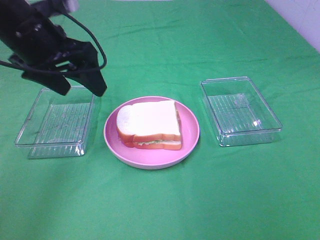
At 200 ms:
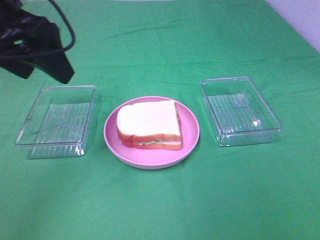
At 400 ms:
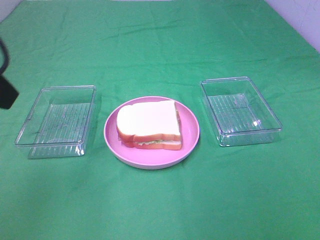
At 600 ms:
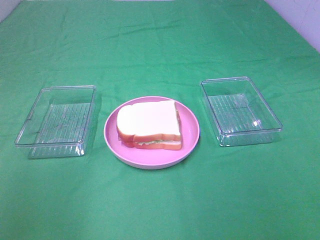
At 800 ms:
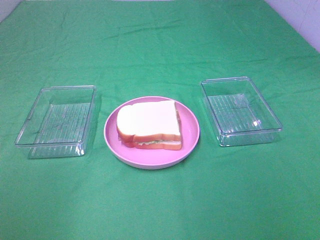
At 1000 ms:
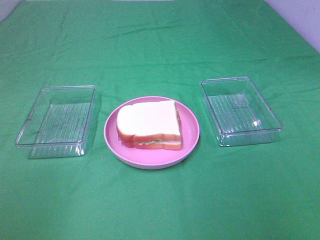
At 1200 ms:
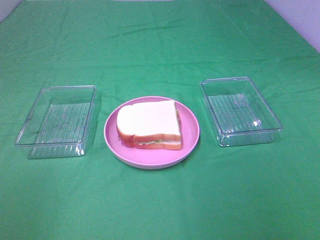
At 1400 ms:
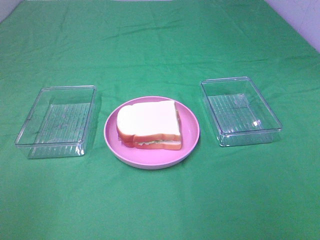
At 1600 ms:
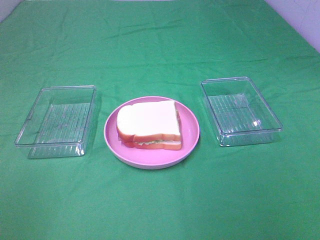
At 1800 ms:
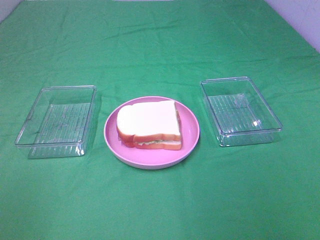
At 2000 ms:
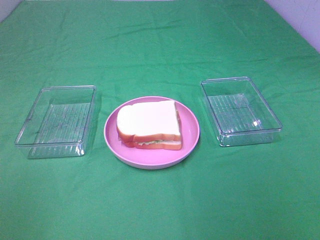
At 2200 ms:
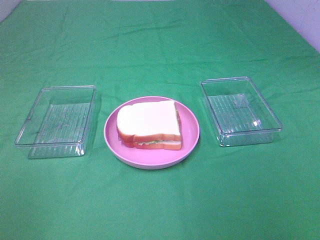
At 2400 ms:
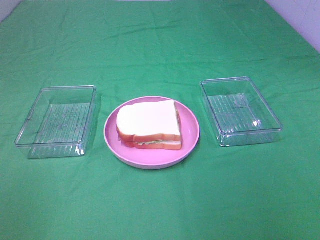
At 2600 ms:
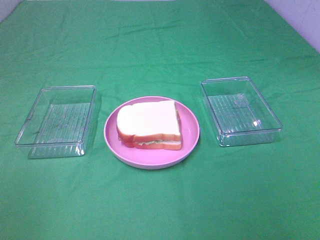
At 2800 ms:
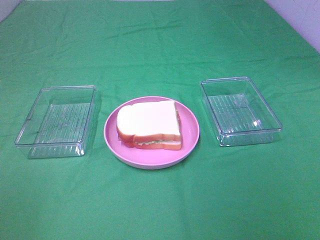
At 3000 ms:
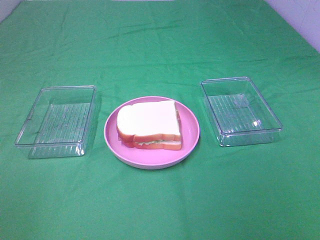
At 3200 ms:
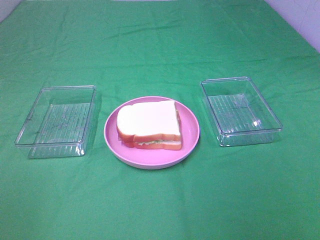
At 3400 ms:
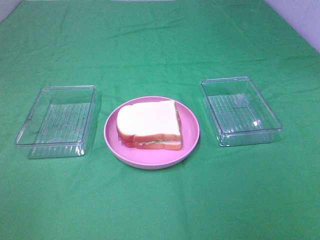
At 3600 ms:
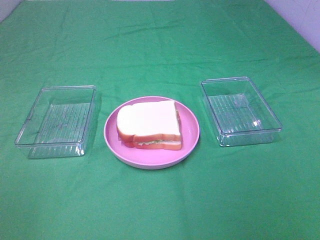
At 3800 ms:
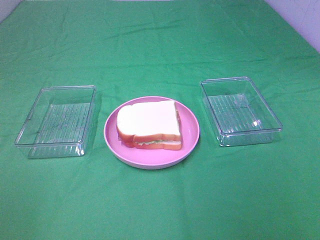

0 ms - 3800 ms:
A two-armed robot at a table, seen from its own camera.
Task of the whole recording: Make sandwiches.
0 ms - 1200 ms: The left gripper goes approximately 30 cm backward and to the left.

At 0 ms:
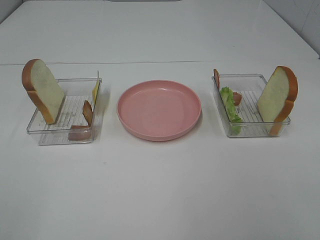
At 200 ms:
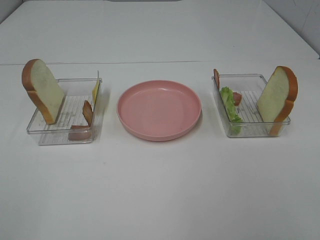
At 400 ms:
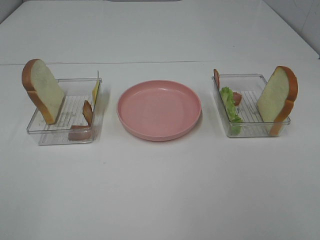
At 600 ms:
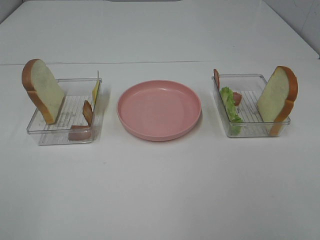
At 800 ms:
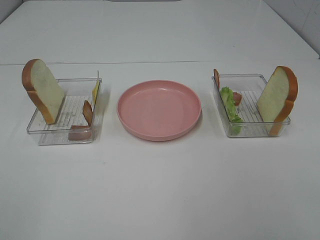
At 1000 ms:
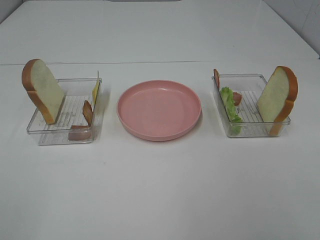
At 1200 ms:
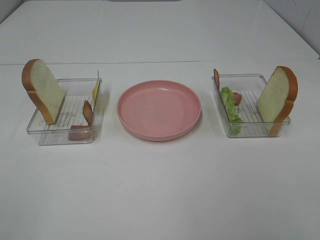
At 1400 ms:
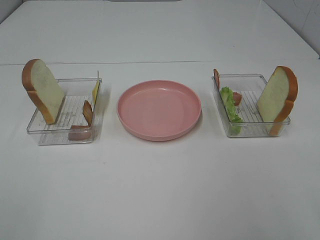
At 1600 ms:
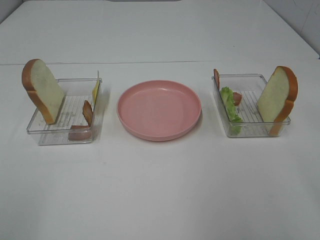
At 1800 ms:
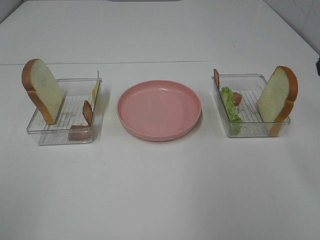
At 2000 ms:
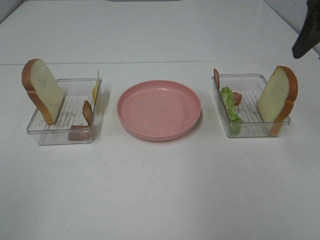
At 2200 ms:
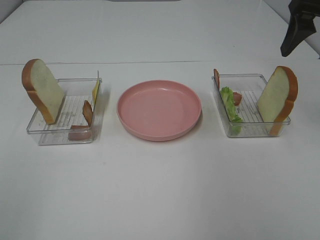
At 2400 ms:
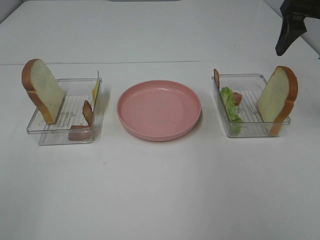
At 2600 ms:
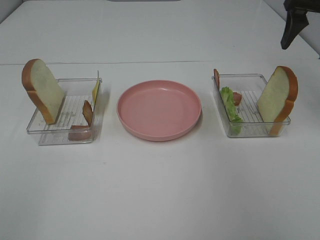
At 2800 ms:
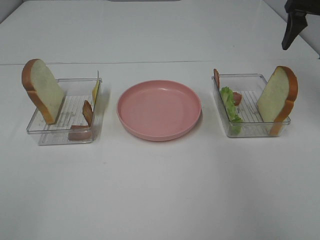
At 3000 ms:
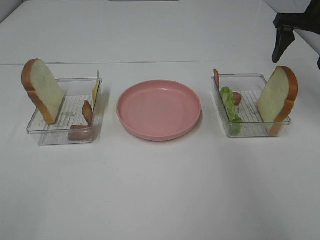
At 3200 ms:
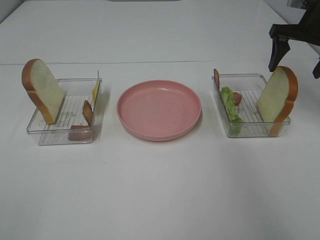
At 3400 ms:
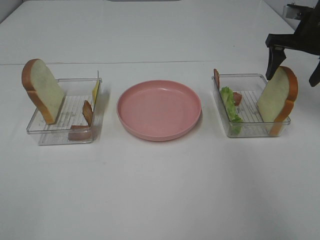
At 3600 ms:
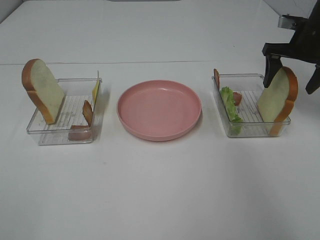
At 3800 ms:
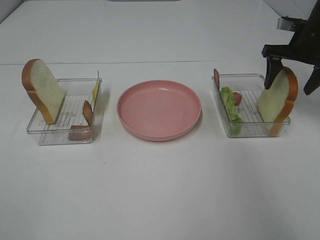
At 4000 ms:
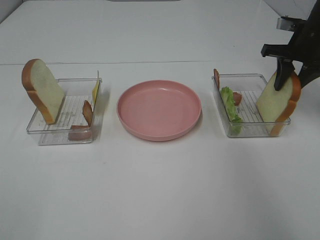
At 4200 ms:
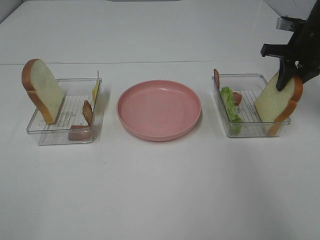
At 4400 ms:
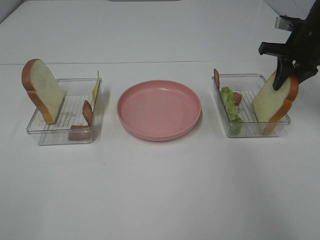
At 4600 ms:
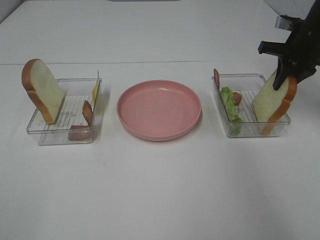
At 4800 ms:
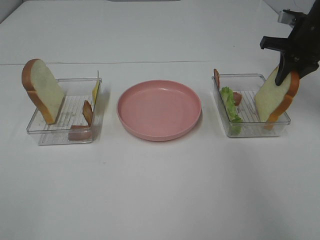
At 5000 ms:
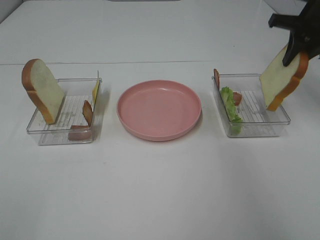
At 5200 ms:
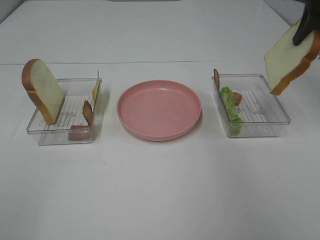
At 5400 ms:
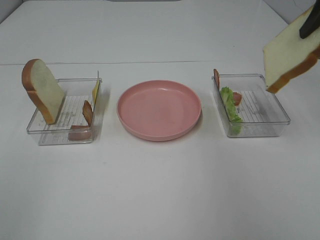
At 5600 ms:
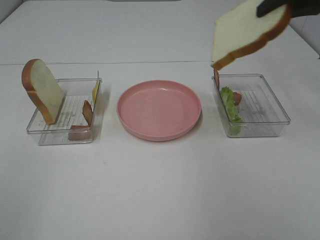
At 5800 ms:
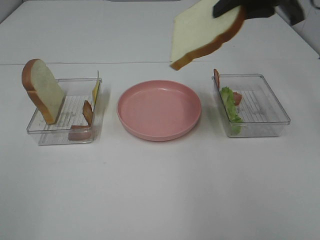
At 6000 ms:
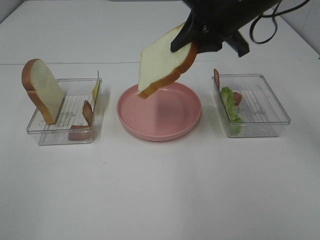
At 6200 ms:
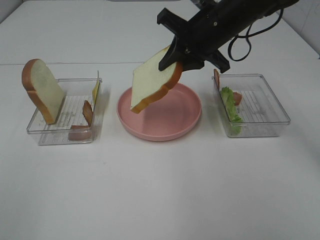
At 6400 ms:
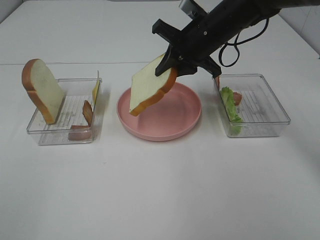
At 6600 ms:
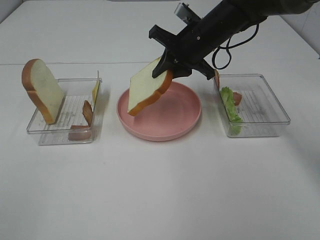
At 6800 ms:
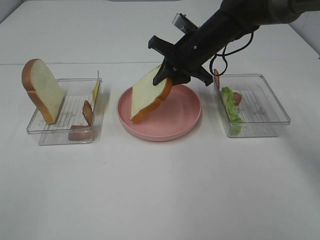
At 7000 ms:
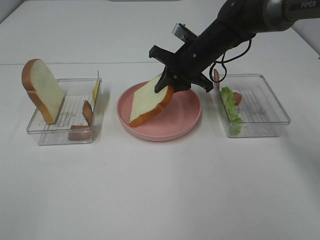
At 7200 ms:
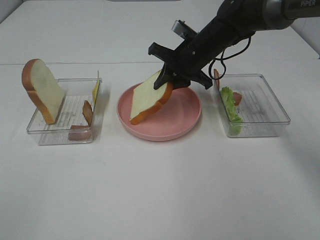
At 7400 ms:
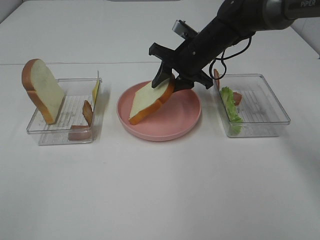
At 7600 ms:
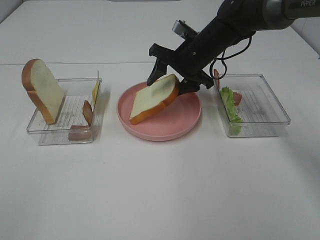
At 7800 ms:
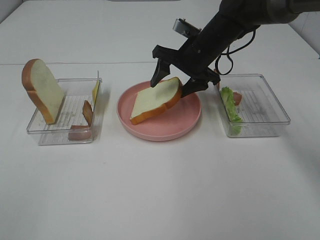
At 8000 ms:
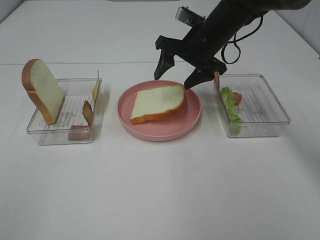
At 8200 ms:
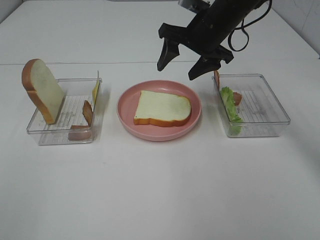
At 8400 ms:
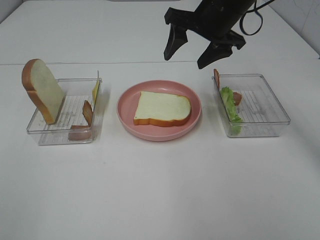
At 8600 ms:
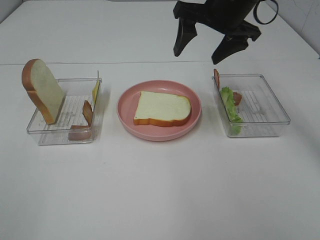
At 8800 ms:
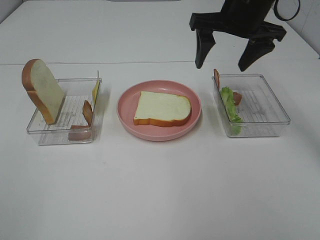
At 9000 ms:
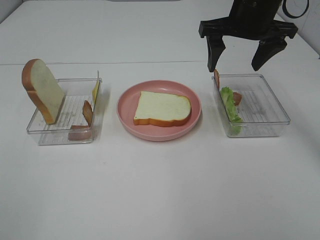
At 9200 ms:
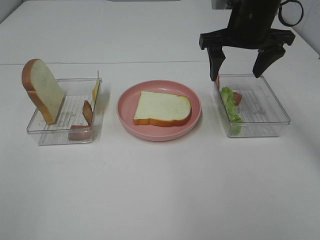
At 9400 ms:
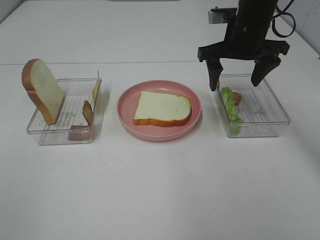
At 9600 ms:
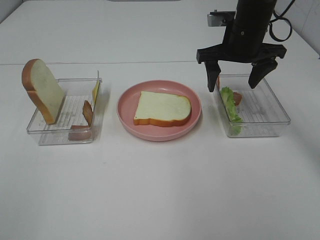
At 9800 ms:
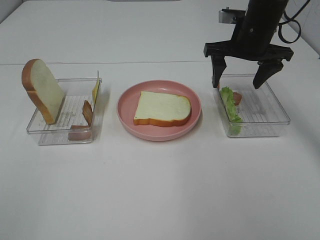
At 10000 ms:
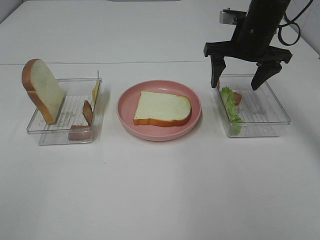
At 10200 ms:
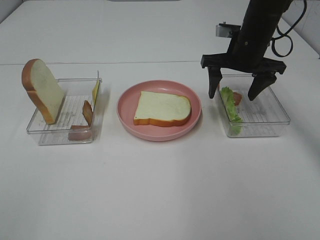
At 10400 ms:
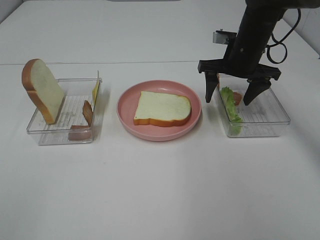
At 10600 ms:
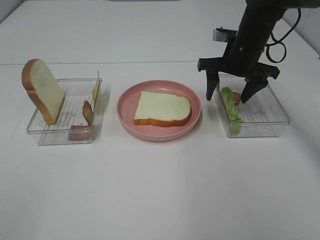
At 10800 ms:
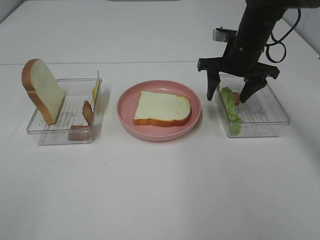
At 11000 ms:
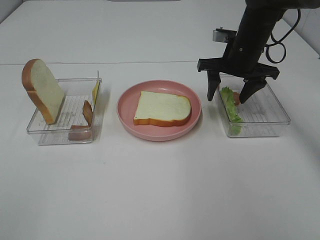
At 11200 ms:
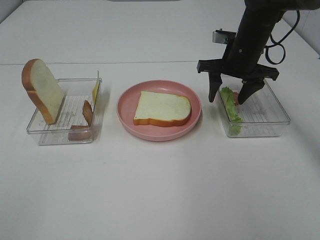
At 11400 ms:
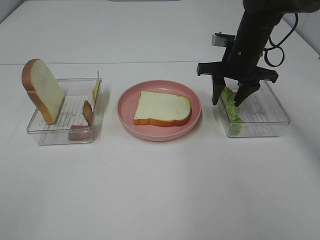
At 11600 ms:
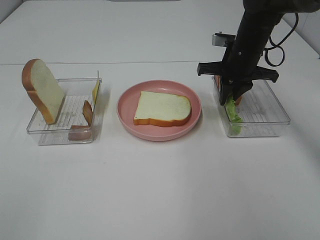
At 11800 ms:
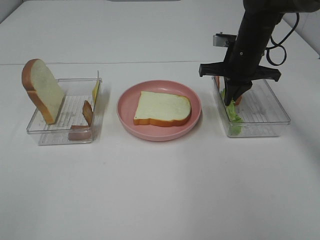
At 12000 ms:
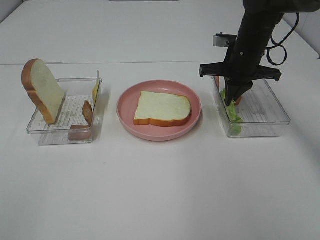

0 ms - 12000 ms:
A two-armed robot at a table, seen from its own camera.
Task of the whole recording: Make sandwiches.
Step, 0 ms - 4800 ms: Right hand:grab the bread slice.
Step, 5000 ms - 8200 ms: Right hand:place the bread slice on the plate.
1600 ms - 3000 ms: The right gripper heads forward, covering roughly 30 cm.
3000 ms - 4400 ms: The right gripper travels downward by approximately 5 cm, and closes.
4400 ms - 6000 ms: The right gripper goes some 20 cm to the left, backward and upward.
6000 ms - 7600 ms: The right gripper is displaced downward and forward by about 15 cm, and opens up.
7600 ms - 9000 ms: The right gripper heads upward, to the right and backward, covering approximately 15 cm.
9000 ms - 10400 ms: The right gripper travels downward by approximately 10 cm.
10400 ms - 12000 ms: The right gripper closes up.

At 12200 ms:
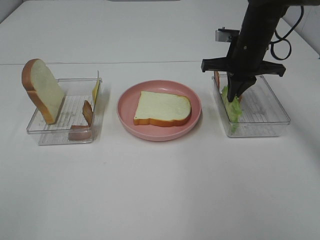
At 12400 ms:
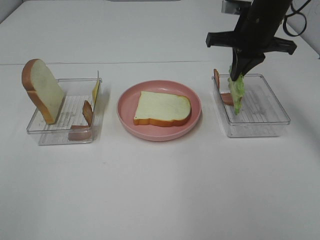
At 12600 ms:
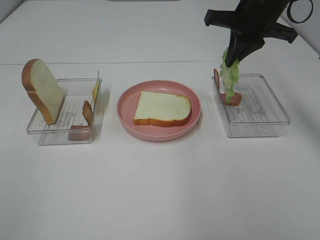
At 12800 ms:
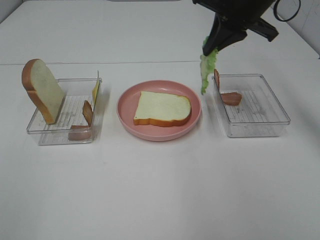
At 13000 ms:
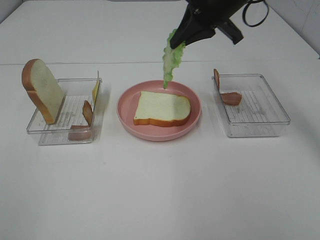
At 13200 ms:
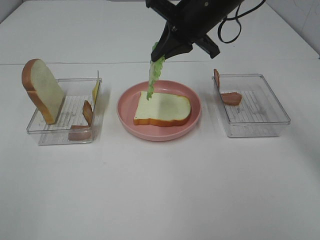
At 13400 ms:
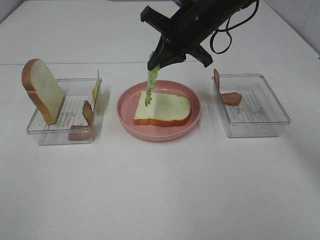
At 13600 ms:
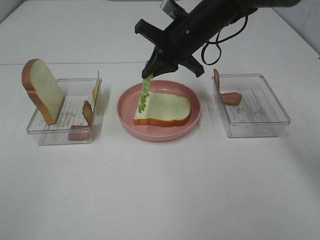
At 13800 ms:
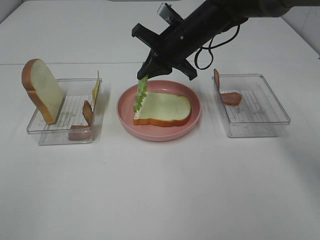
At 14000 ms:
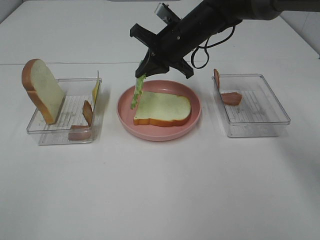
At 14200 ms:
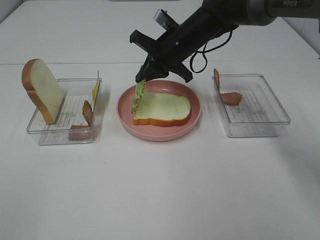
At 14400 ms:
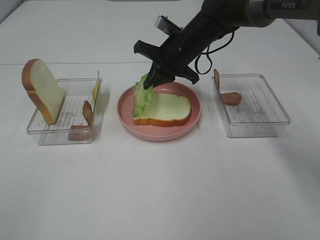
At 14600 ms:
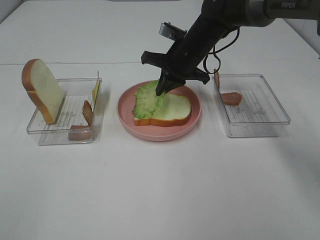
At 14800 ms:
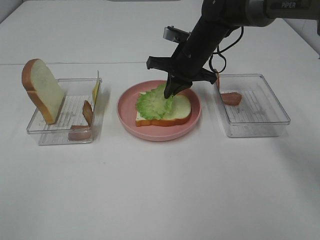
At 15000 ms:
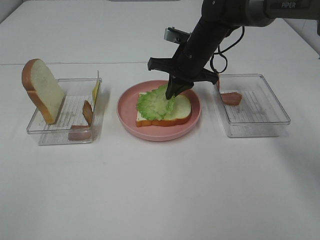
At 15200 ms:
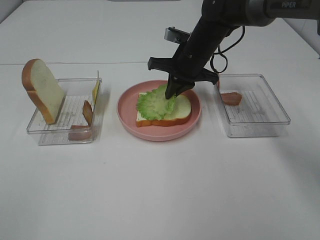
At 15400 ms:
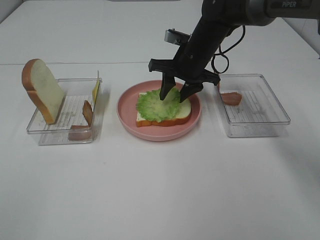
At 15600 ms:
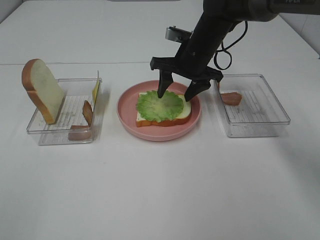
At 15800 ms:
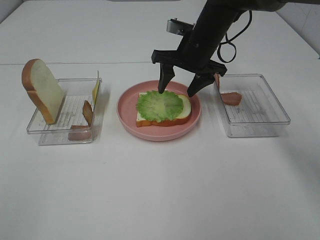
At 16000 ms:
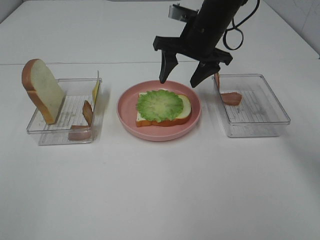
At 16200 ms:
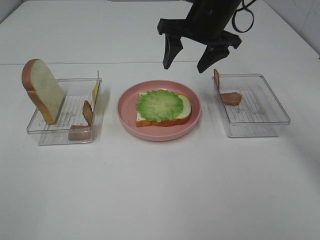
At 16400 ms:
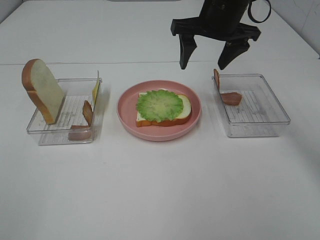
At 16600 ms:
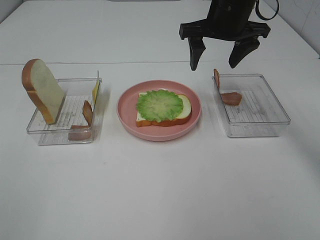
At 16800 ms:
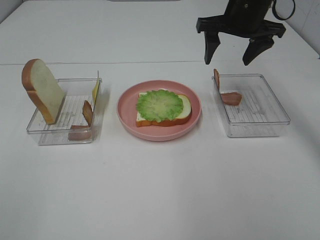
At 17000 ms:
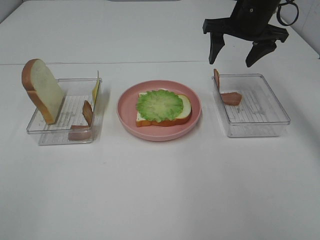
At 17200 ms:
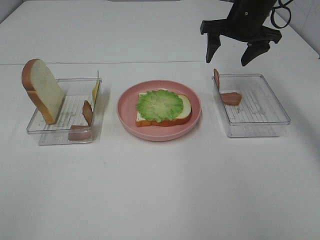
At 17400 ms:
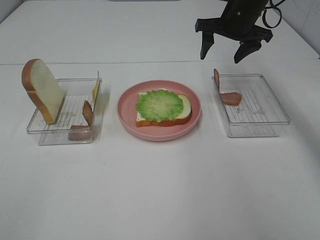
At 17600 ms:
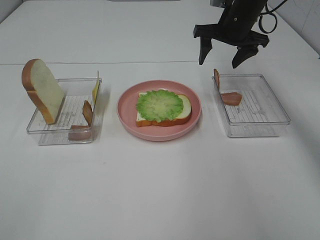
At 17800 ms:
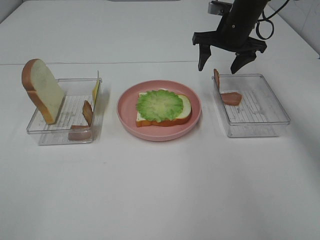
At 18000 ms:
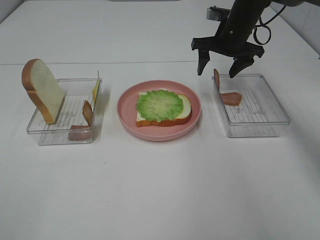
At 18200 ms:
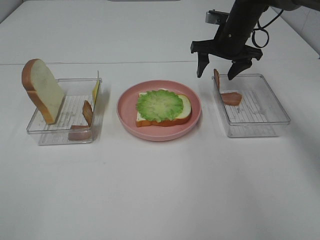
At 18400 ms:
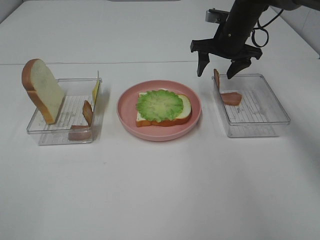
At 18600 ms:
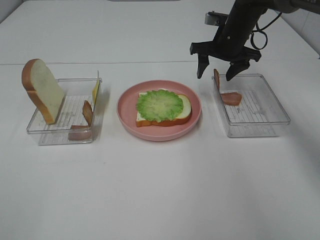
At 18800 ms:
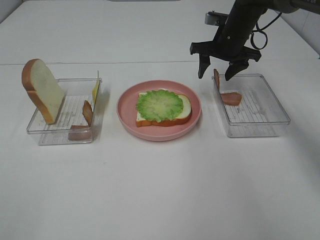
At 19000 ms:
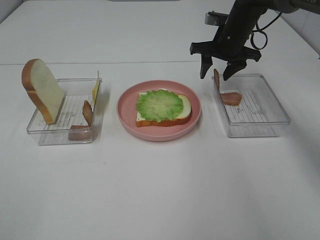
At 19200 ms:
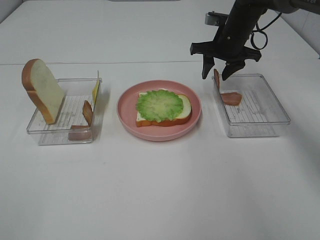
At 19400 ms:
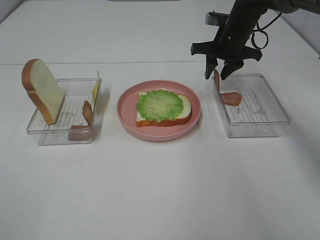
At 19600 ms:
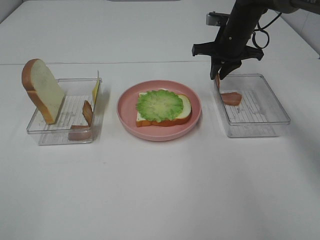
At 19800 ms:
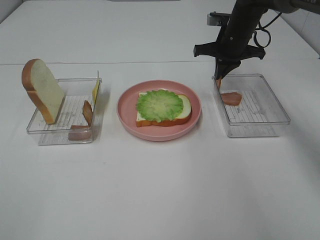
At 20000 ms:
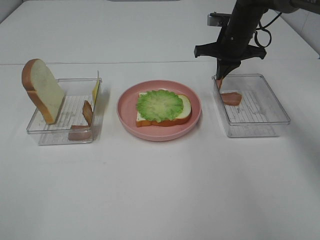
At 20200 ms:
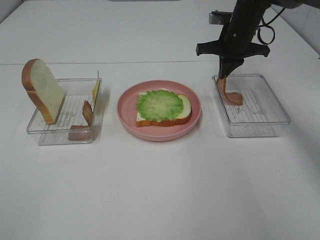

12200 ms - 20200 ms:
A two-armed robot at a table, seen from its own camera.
Task of the whole recording: Make sandwiches.
Step, 12400 ms - 15800 ms: Right hand:place the lettuce slice on the bread slice.
Step, 16000 ms - 20000 ms: Right hand:grab the bacon.
12200 ms - 13800 ms: The right gripper travels to the left by approximately 10 cm.
13800 ms - 15400 ms: The right gripper opens up.
15400 ms - 17000 ms: The right gripper is displaced to the right and upward by some 15 cm.
17000 ms - 18600 ms: The right gripper heads downward and forward, covering roughly 10 cm.
18600 ms - 20200 ms: The right gripper closes.
